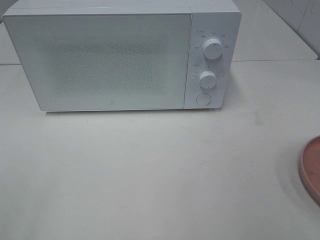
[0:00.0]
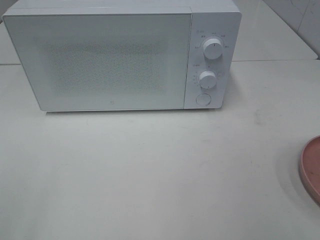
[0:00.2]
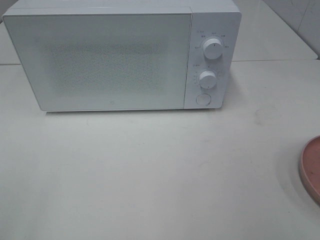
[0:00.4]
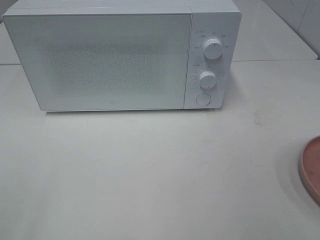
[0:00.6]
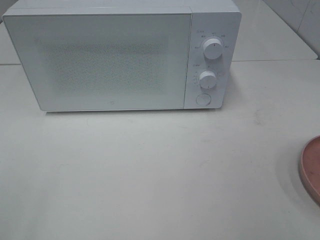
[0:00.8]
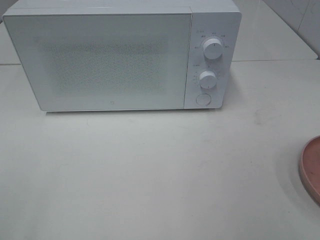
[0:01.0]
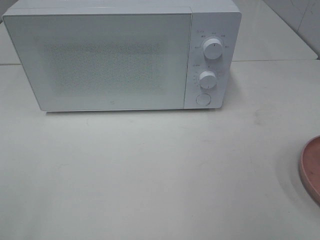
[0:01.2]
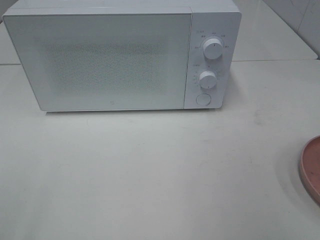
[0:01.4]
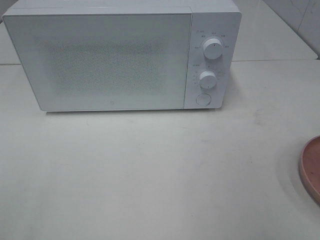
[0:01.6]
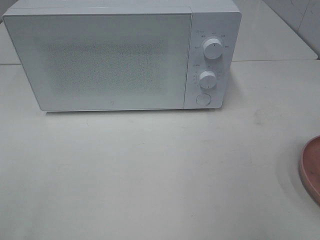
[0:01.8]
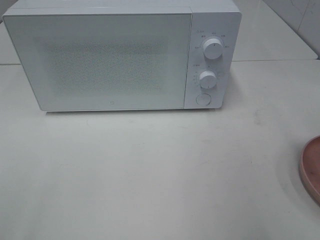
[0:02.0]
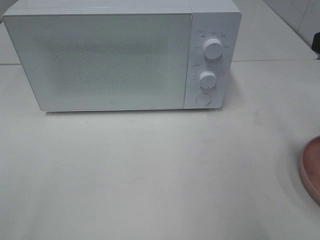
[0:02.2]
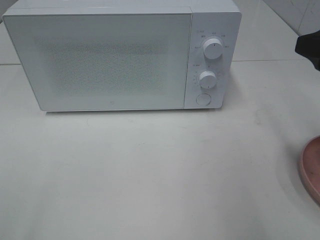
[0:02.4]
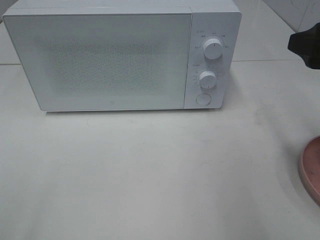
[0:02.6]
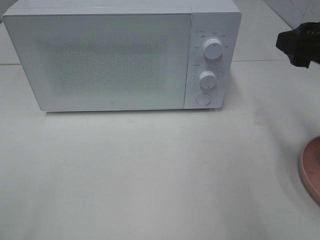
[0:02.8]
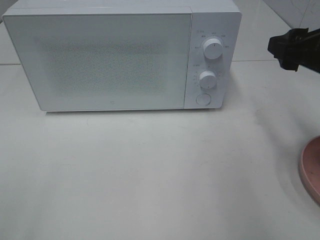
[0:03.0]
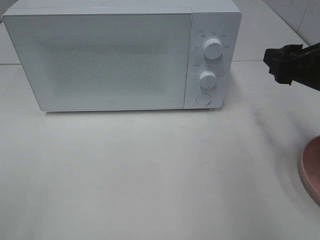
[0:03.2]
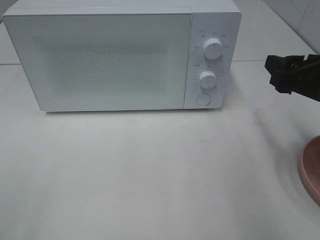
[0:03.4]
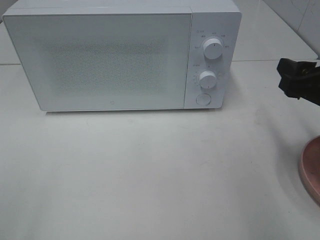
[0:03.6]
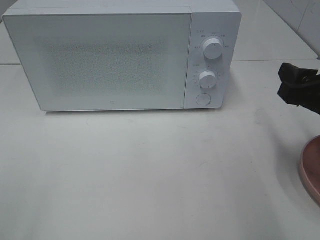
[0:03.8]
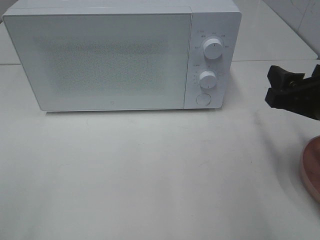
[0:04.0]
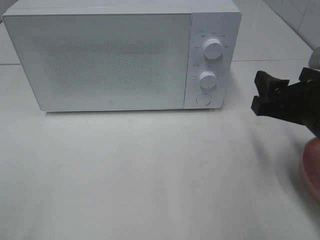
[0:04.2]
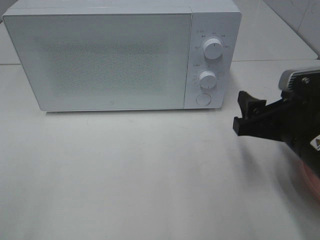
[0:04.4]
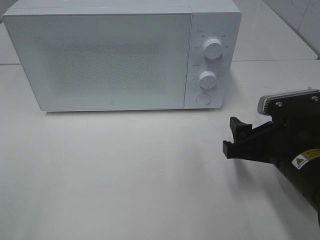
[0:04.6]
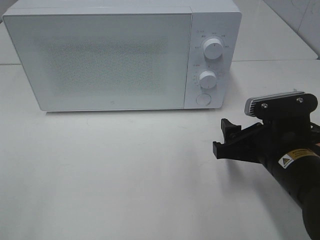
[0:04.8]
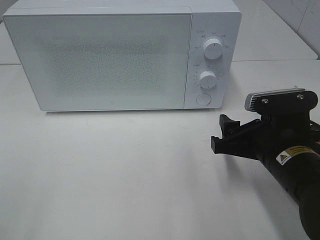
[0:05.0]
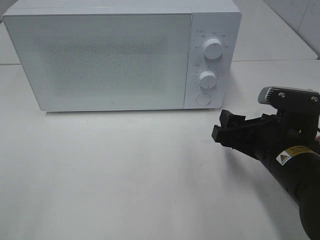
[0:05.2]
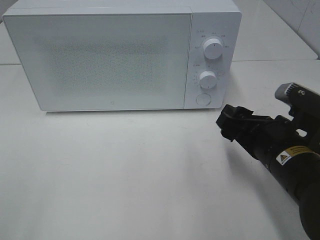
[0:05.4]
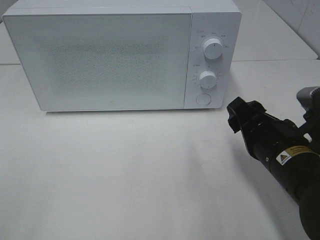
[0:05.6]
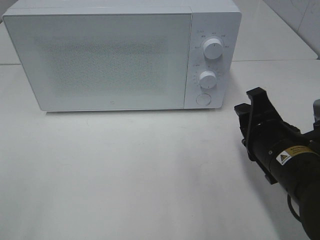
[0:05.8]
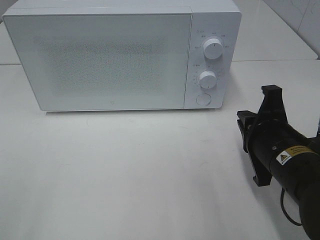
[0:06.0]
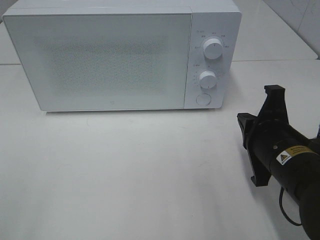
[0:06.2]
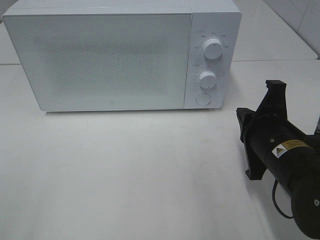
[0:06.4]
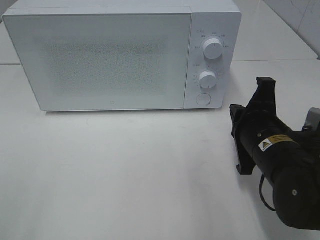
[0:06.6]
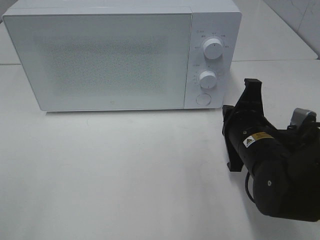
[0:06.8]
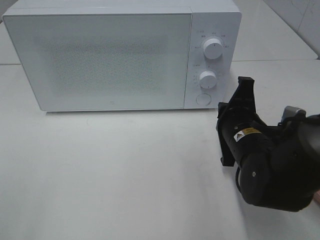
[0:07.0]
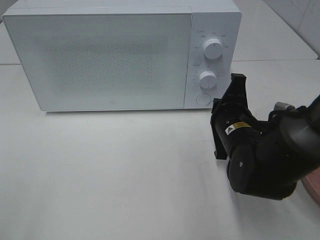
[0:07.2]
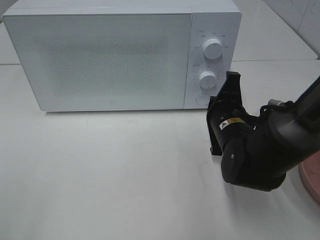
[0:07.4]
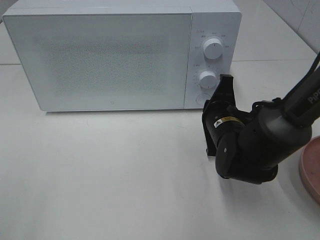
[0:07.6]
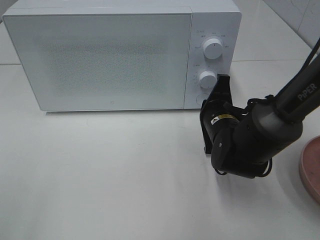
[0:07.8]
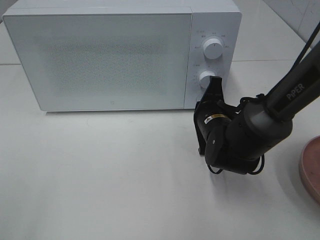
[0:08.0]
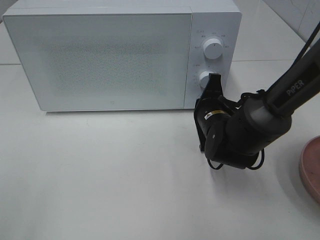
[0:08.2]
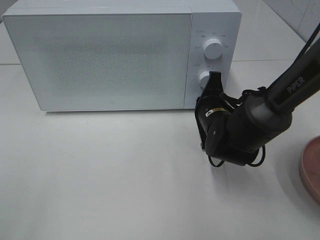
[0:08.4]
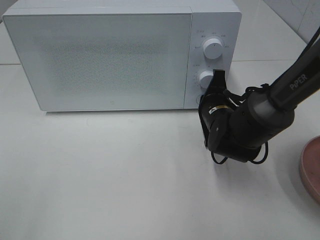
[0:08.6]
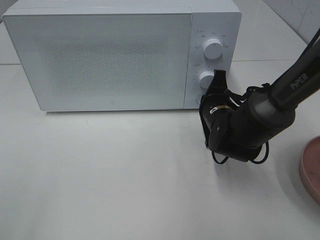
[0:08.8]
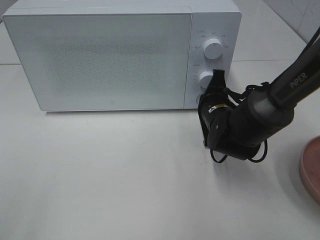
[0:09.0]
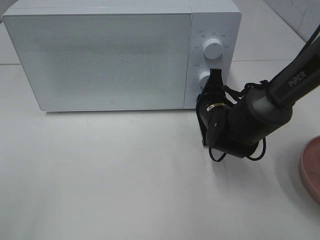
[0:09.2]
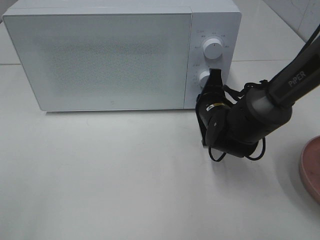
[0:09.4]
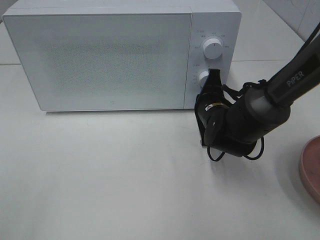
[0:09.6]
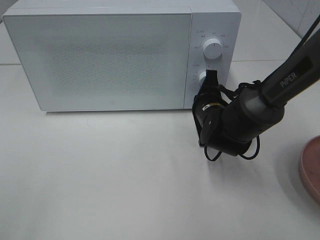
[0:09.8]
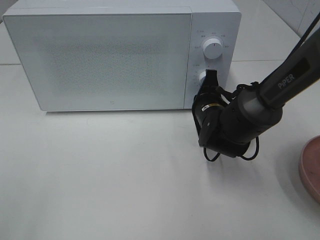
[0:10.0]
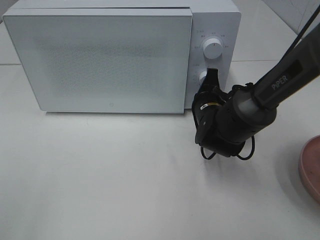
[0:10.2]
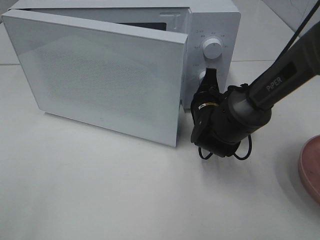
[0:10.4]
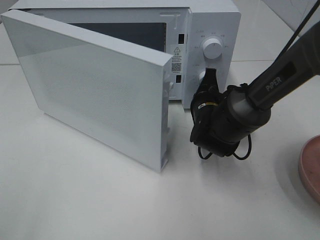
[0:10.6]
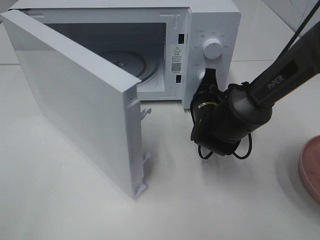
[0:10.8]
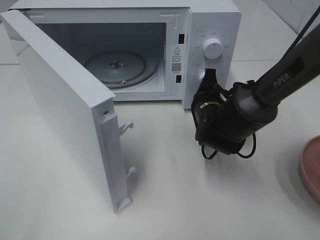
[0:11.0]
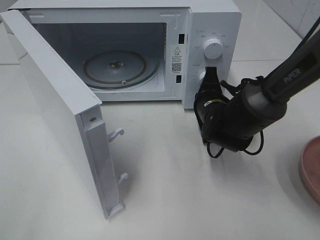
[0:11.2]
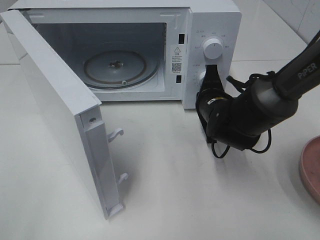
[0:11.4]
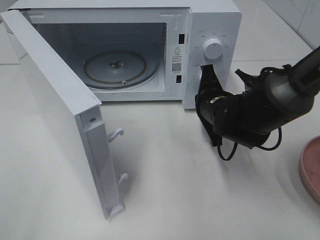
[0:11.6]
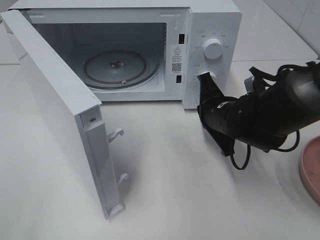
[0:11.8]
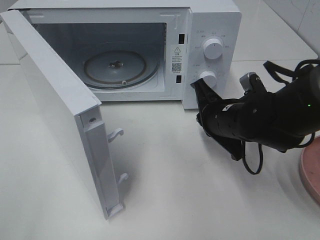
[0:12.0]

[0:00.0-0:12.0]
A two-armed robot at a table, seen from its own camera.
Task of the whole recording: Heat the burger.
Step, 0:00.0 to 0:11.8: Right hand: press the switch.
0:01.6 to 0:03.0: The right gripper goes approximately 15 cm forward and downward.
0:03.0 to 0:04.4: The right gripper goes roughly 10 cm downward and to the left.
0:04.4 to 0:06.0: The right gripper closes.
0:06.0 to 0:07.6: The right gripper is displaced forward by roughly 10 cm.
0:07.6 to 0:10.4: The grippers stay close to where they were, moving slightly.
0:10.4 to 0:12.0: The right gripper heads backward, covering approximately 5 cm.

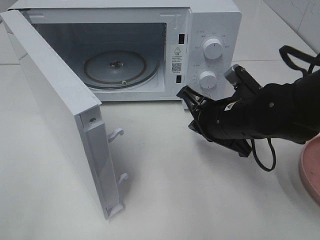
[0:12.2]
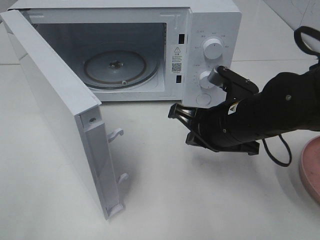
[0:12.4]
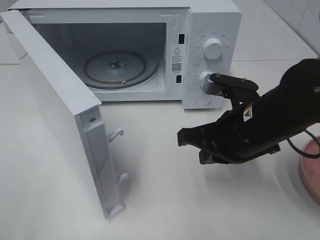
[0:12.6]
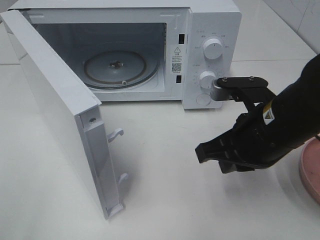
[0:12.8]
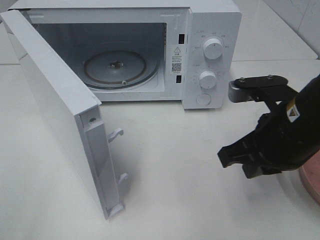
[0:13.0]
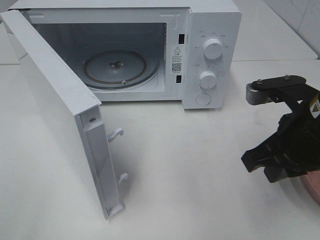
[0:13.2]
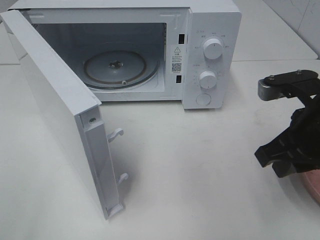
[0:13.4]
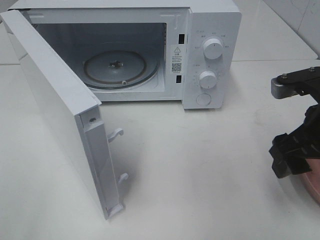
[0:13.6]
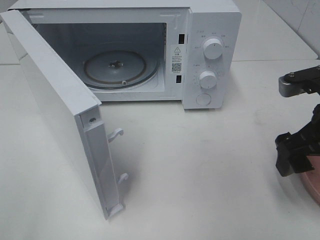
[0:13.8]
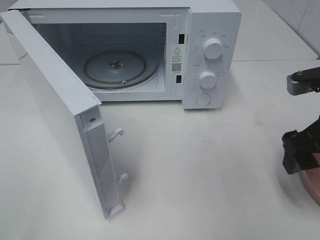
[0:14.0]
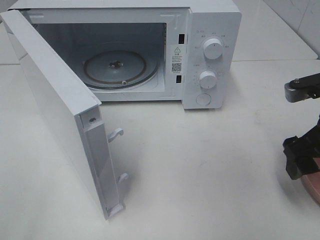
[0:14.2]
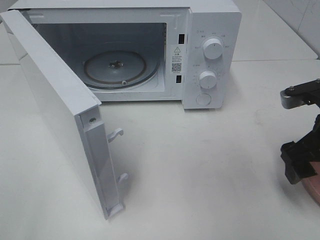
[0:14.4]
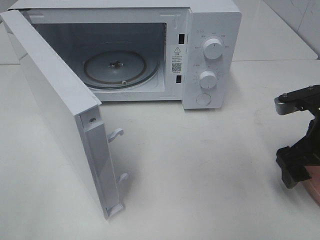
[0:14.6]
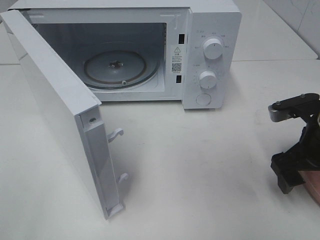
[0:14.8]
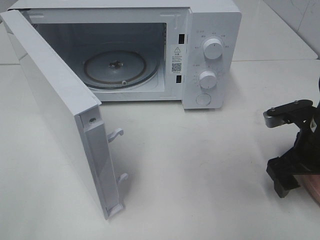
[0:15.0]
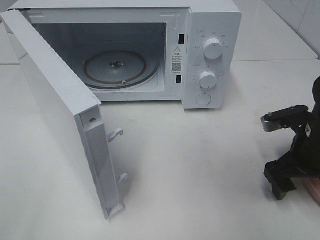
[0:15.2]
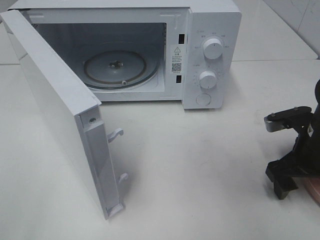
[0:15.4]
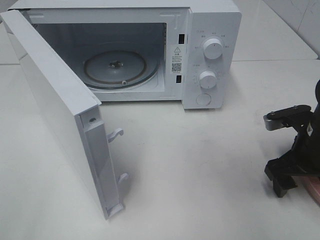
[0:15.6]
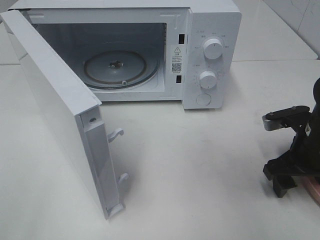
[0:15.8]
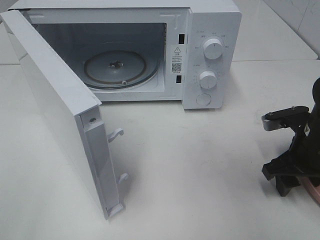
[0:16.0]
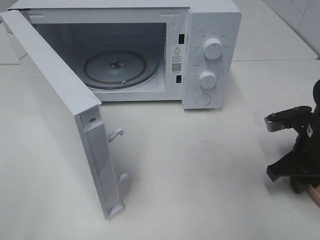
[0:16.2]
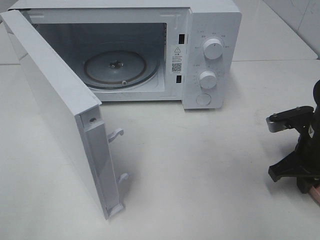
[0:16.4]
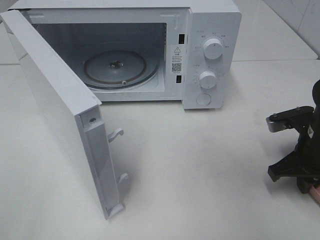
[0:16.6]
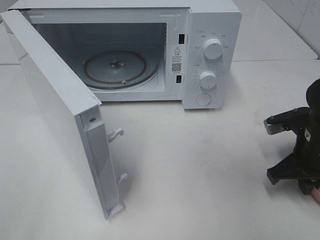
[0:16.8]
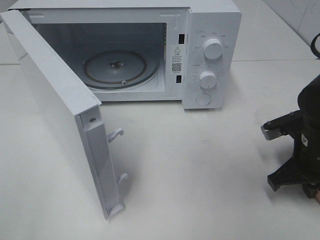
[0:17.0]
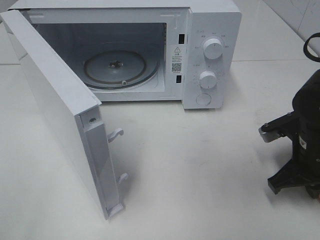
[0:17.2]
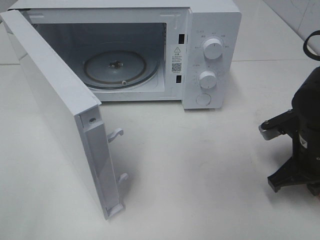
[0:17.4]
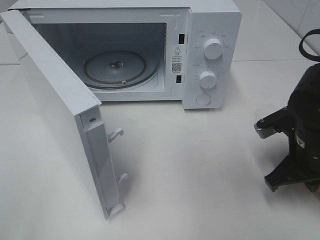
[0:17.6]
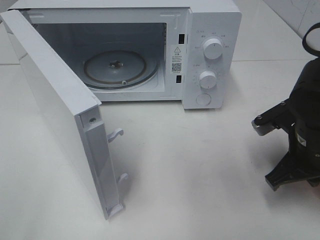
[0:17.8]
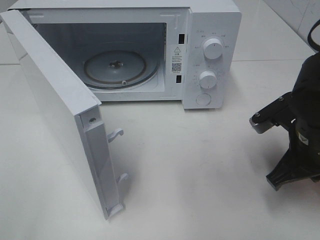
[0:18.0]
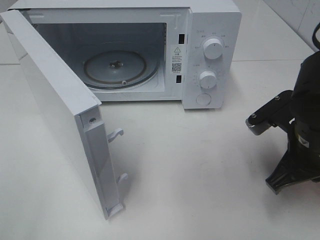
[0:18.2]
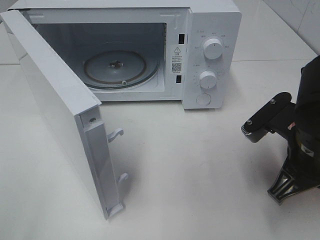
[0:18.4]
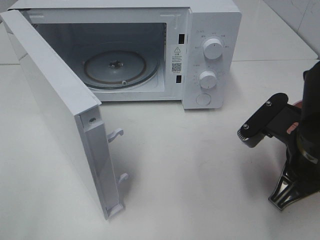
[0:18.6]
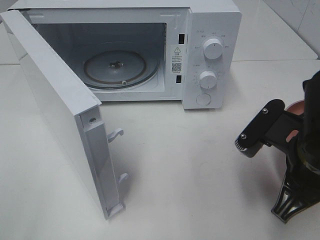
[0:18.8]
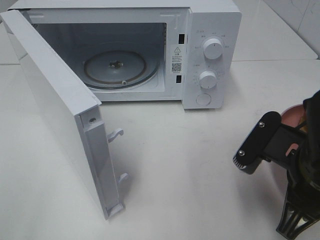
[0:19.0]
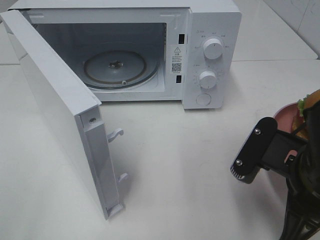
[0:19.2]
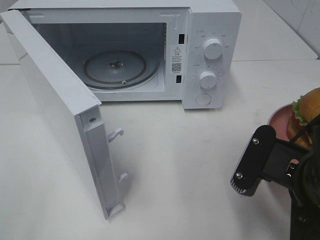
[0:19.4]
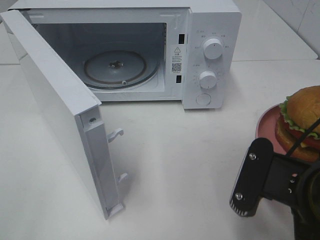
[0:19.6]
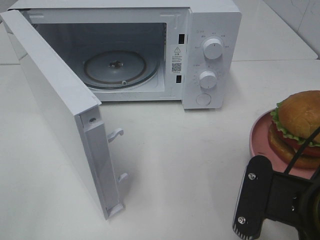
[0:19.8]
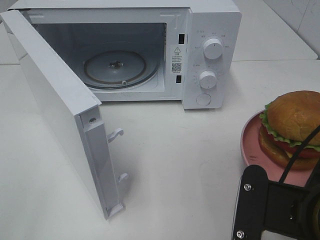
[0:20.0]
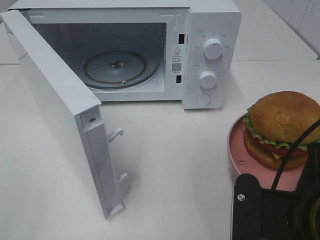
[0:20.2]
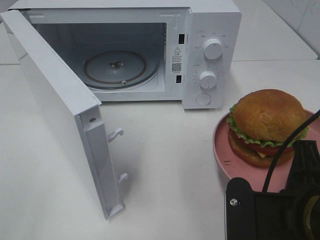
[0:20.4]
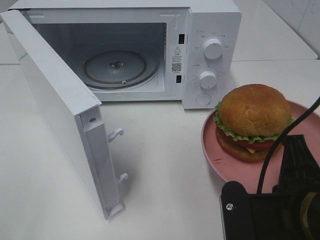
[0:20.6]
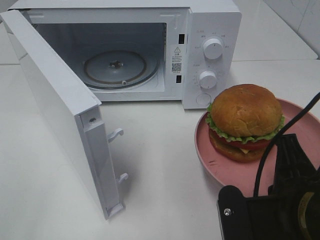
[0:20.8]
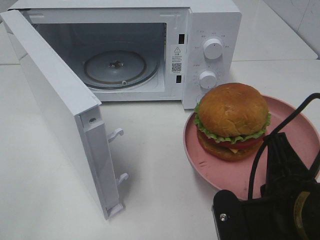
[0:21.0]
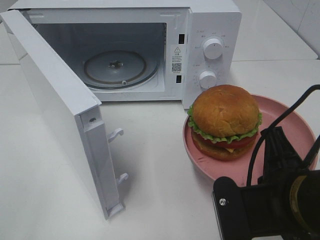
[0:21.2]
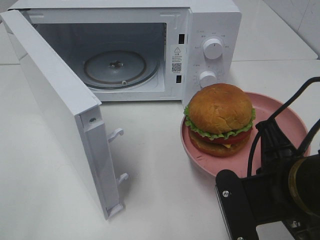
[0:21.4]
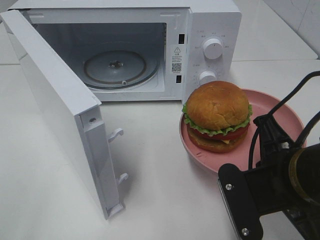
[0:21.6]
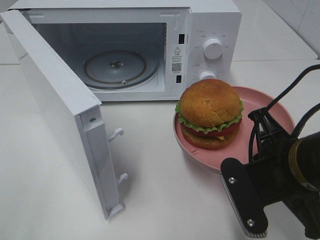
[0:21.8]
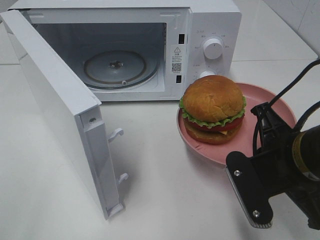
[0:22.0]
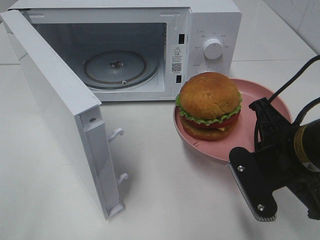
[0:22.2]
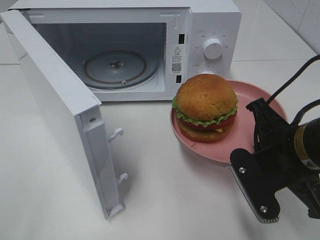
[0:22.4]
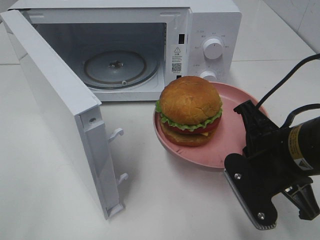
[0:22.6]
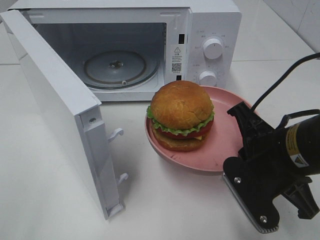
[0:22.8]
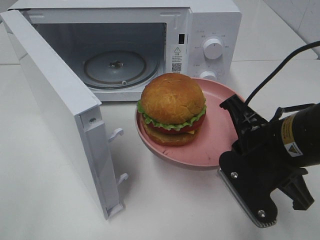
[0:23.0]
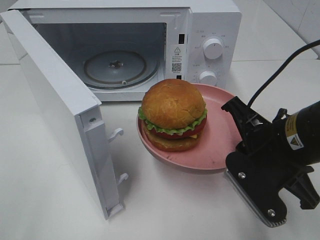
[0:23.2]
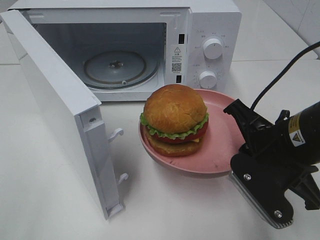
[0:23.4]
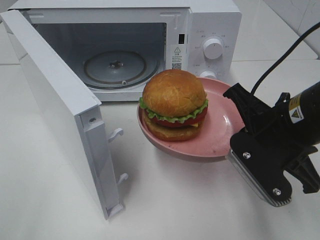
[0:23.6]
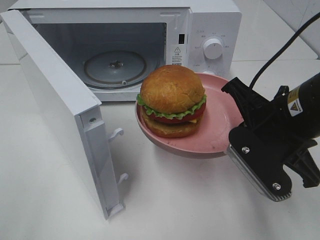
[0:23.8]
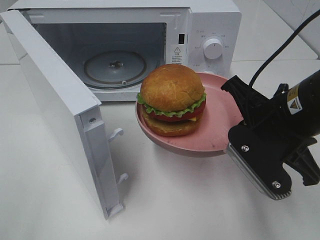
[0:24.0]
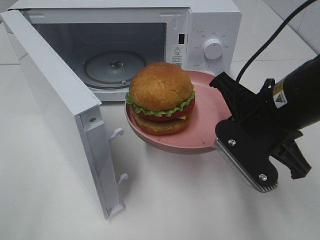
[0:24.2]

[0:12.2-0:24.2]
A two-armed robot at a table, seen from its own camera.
Task of the whole recording: Heat the burger.
Step, 0:12.2 to 0:17.2: Right hand: grab the plate with the hamburger.
0:12.2 to 0:13.8: The right gripper is displaced to the right, upward and backward by roughly 15 cm, and opens its fingers.
0:13.8 to 0:15.2: The right gripper heads downward, covering about 10 cm.
0:15.2 to 0:16.6: The right gripper closes.
0:16.6 to 0:18.2: The right gripper travels to the left and upward by some 10 cm.
0:18.2 to 0:19.8: The right gripper goes some 10 cm backward.
0:21.2 to 0:22.6: The right gripper shifts approximately 5 cm forward.
0:22.6 to 0:24.2: The right gripper moves some 5 cm.
